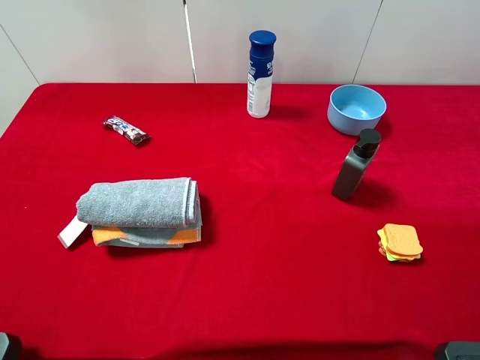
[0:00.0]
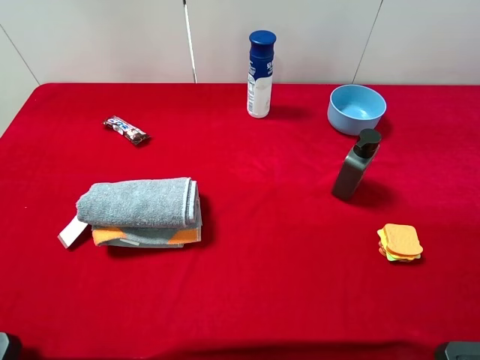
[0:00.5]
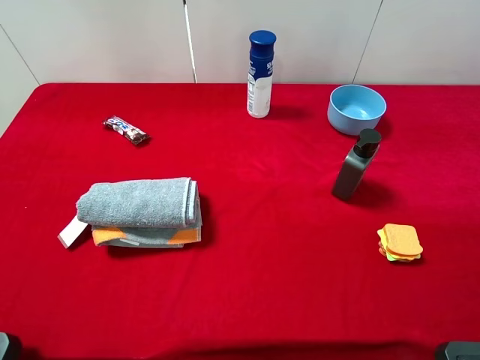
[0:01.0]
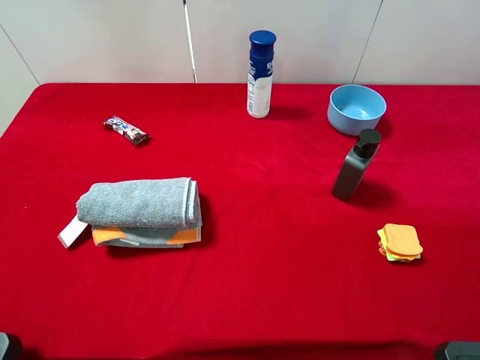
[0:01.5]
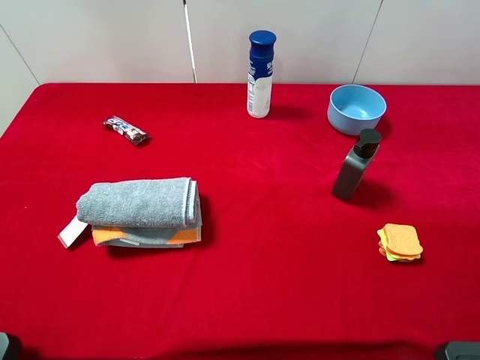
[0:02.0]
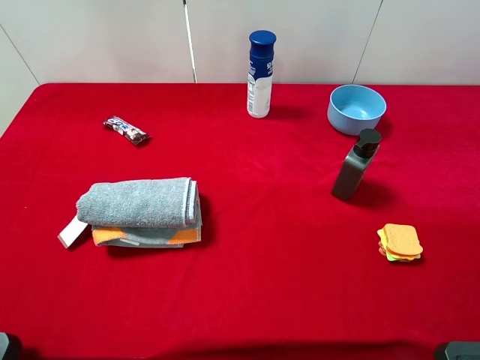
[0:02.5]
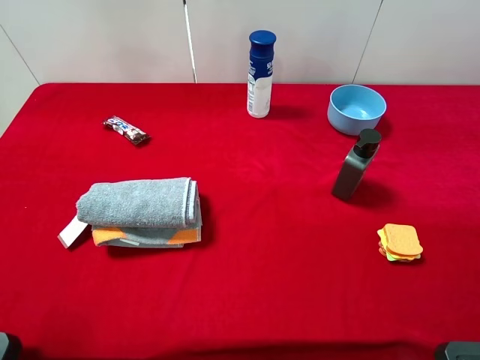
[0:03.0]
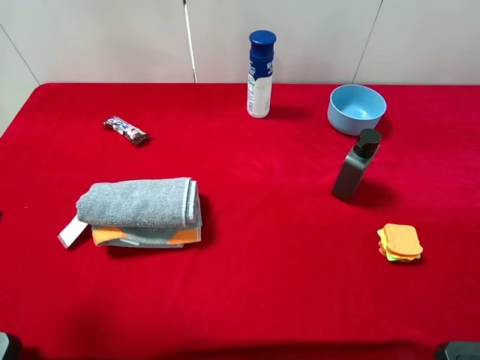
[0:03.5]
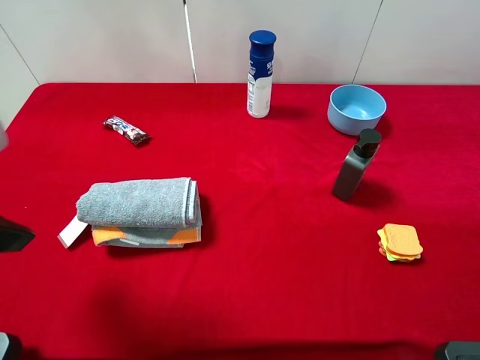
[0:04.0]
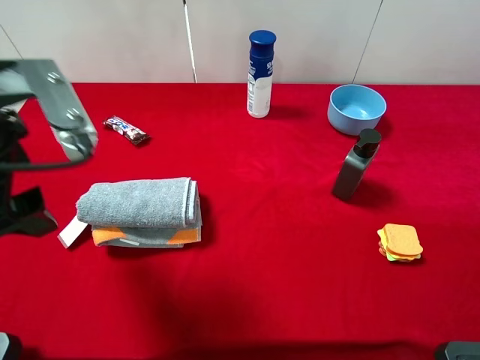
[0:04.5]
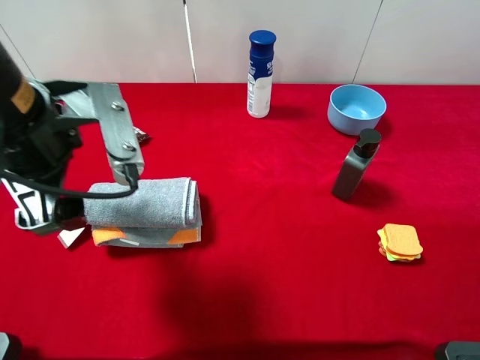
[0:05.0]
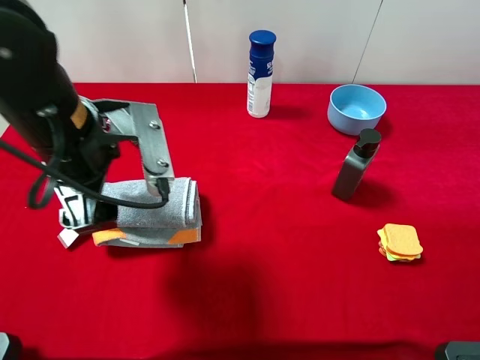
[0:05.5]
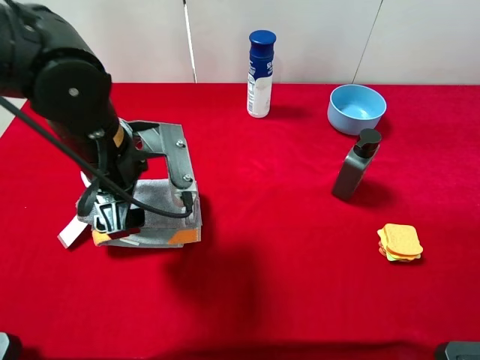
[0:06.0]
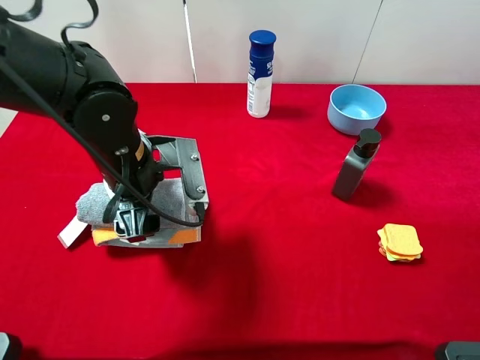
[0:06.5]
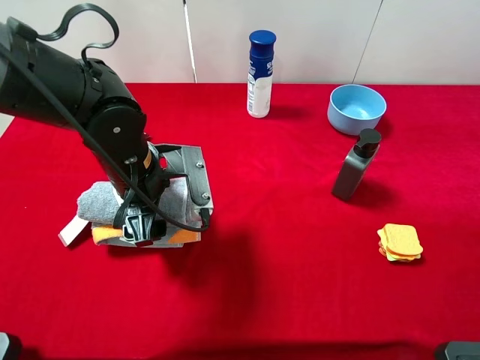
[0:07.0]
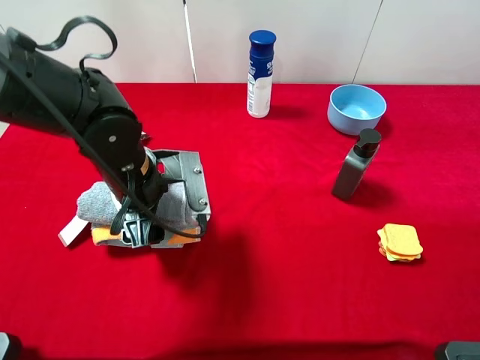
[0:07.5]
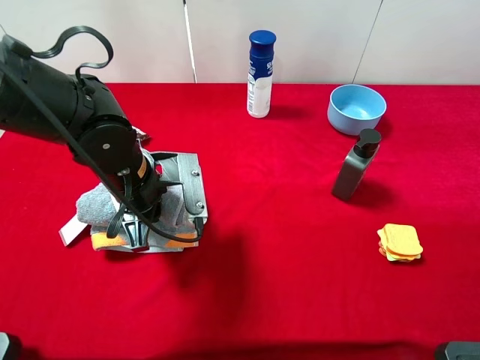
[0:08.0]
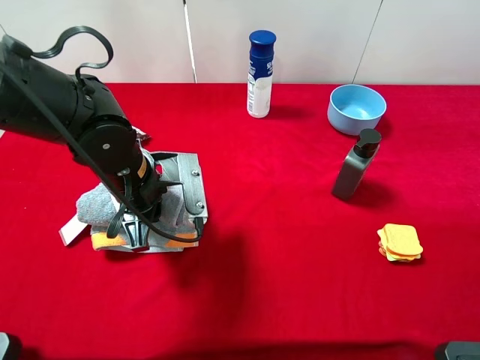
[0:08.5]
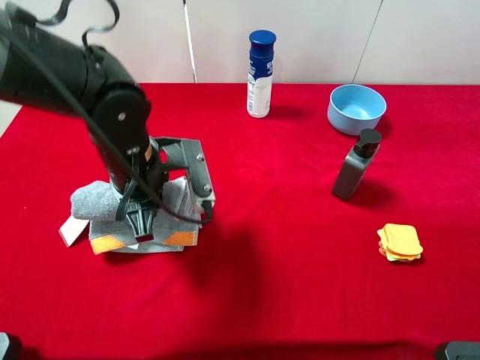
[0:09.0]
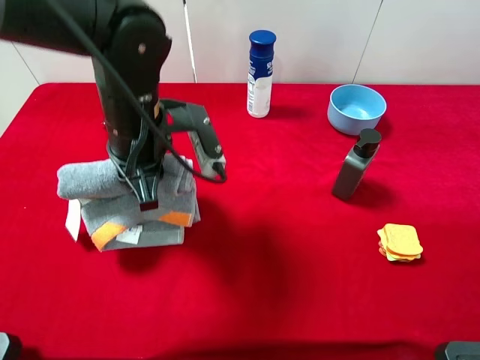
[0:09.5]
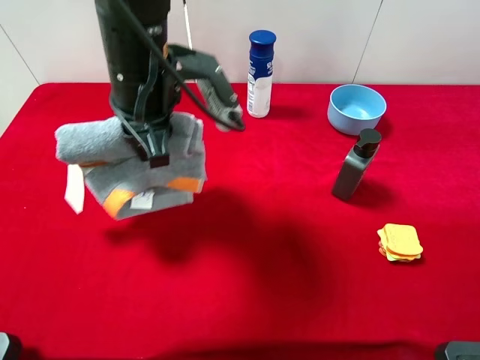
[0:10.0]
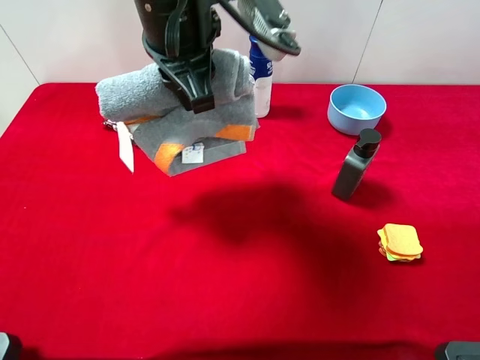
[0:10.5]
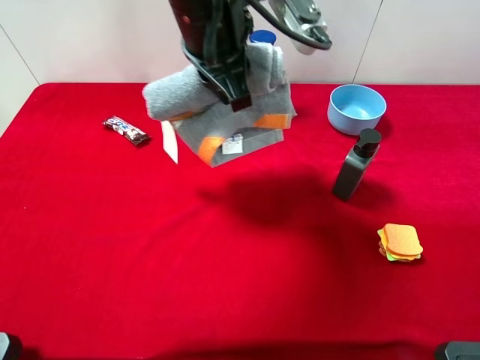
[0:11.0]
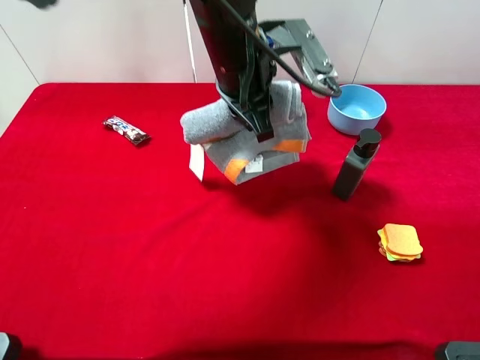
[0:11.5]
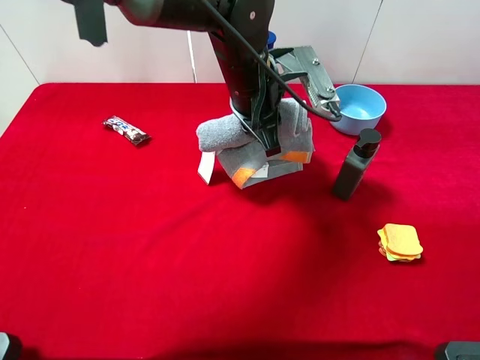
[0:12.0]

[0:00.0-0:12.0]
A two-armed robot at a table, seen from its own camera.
Task of the whole recording: the gripper move the object.
Step, 0:00.0 to 0:08.0: Grasp the grey towel with the left gripper.
0:00.0 to 0:02.0: The two grippers keep their place.
0:02.0 to 0:04.0: The left gripper shifts some 15 cm forward and to the right.
0:04.0 to 0:06.0: The left gripper heads to the right, downward and forward, covering roughly 20 cm.
0:06.0 to 0:08.0: The left gripper is displaced downward by some 5 cm, and closes.
0:08.0 to 0:10.0: The left gripper goes some 15 cm upward.
0:10.0 to 0:12.0: The left gripper travels to the right, forward and downward by approximately 15 cm.

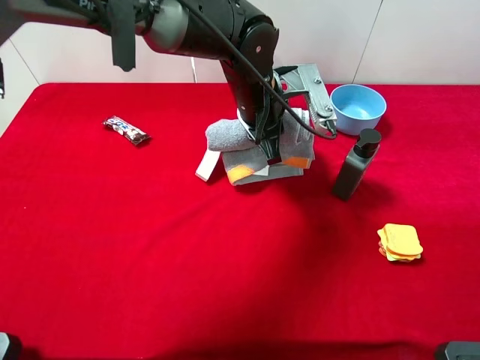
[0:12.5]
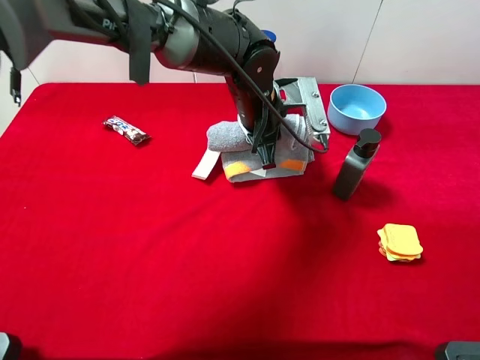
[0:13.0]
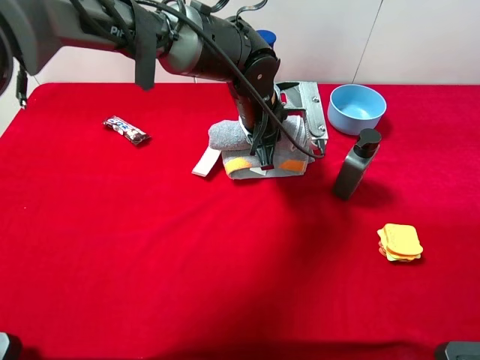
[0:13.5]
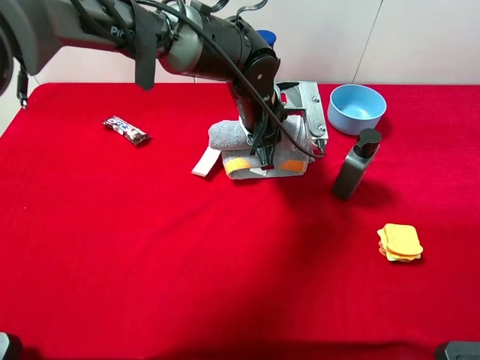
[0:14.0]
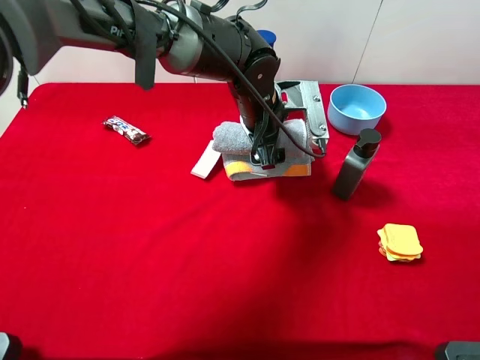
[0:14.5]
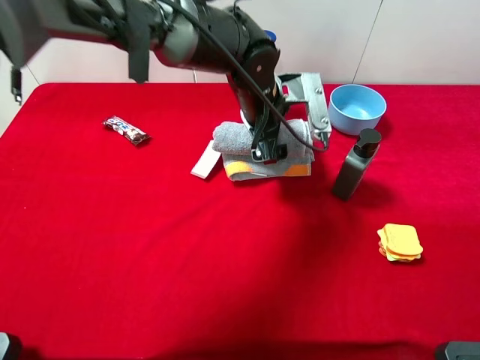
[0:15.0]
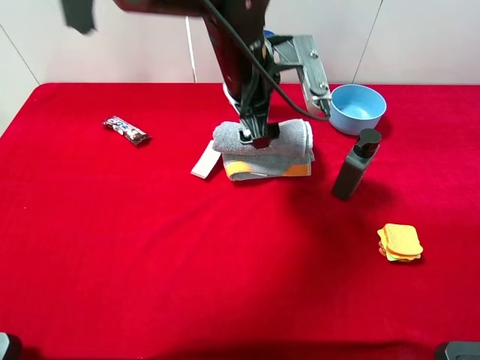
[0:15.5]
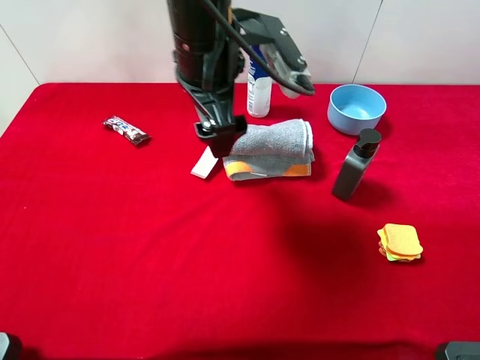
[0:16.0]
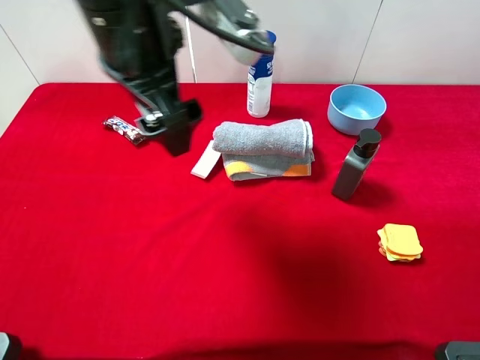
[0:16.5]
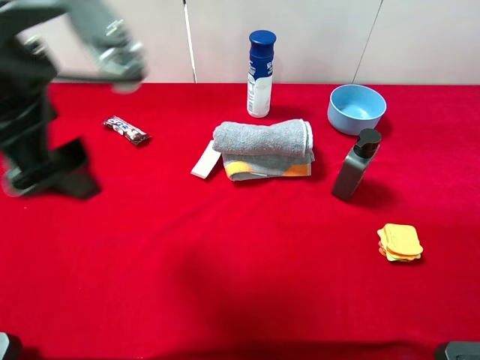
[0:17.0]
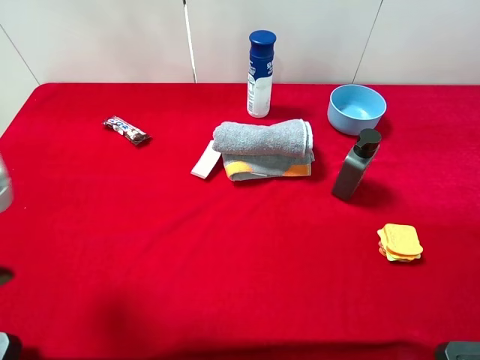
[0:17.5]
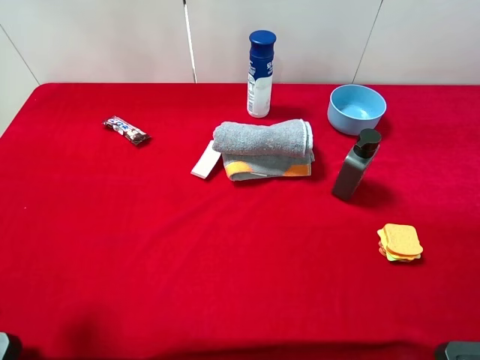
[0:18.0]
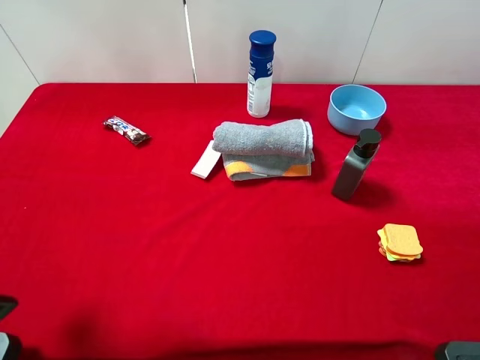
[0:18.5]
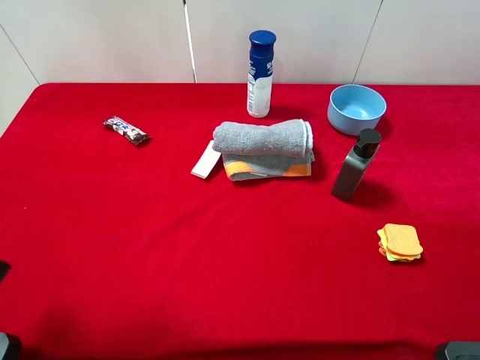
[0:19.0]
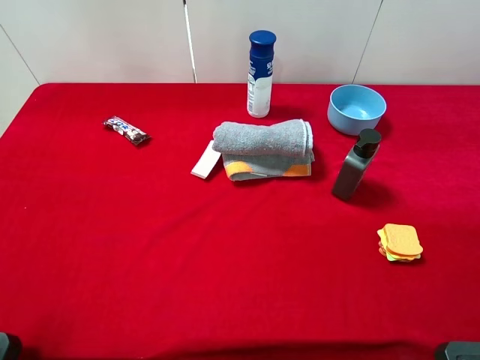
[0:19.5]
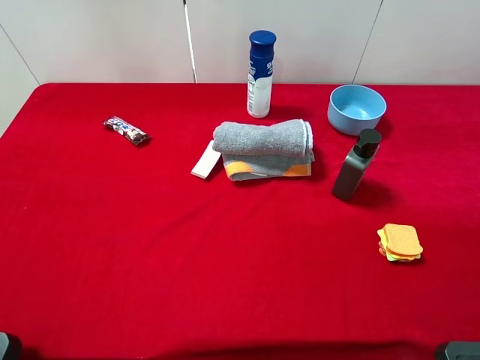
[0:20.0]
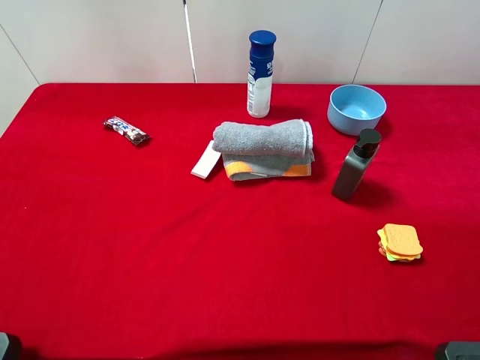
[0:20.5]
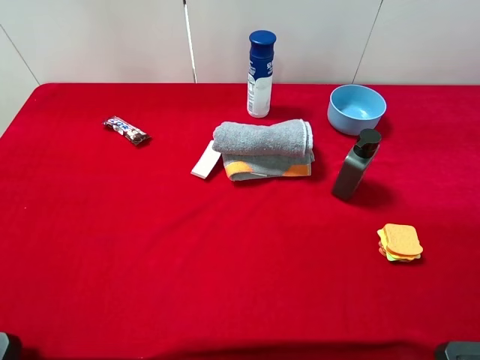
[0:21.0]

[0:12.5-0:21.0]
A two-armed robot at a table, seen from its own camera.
Task of the whole recording: the gripper move the object.
Step, 0:12.5 to 0:15.5: Place the grey towel on the table with the left gripper.
0:12.5 to 0:14.5: The left gripper opens.
0:14.5 to 0:16.5: The left gripper heads upward, to the left and backward, covering about 25 cm.
0:16.5 to 0:19.0: The left gripper moves to the left and backward, roughly 25 cm.
